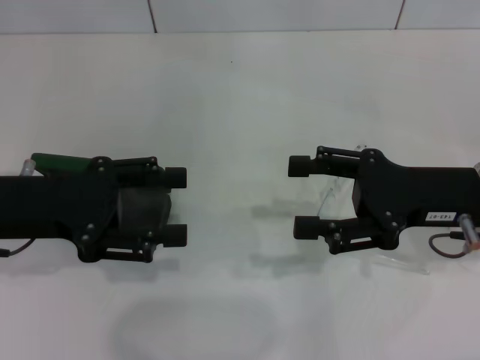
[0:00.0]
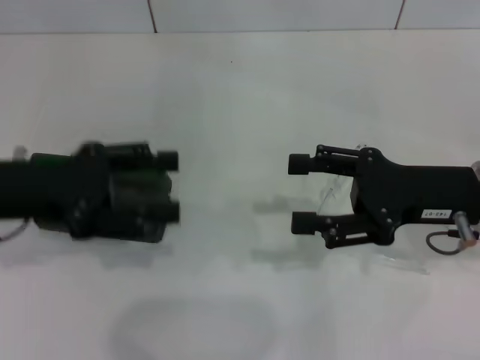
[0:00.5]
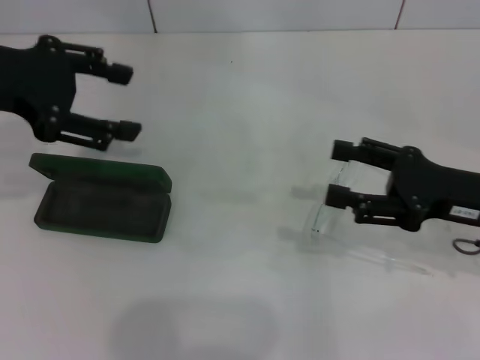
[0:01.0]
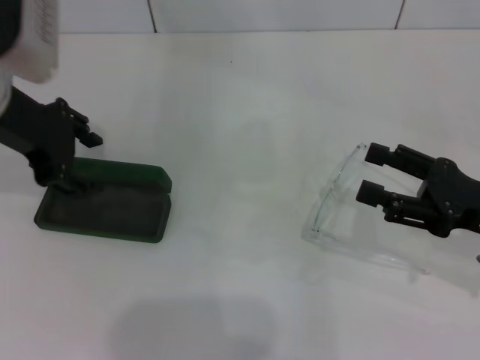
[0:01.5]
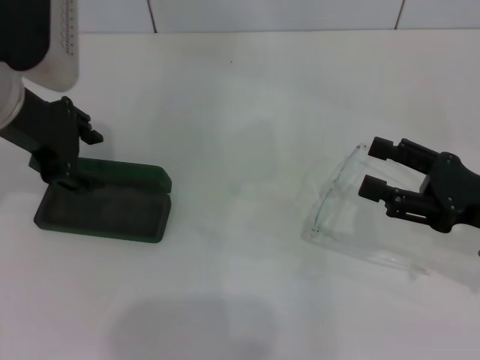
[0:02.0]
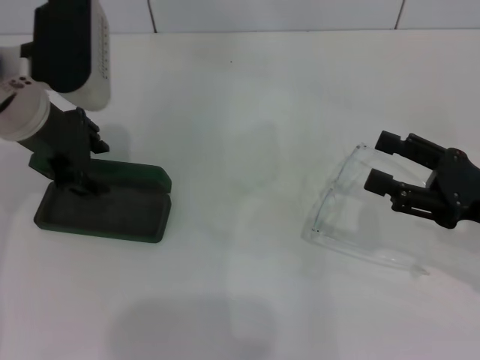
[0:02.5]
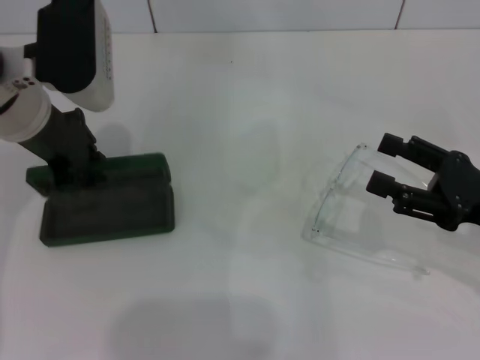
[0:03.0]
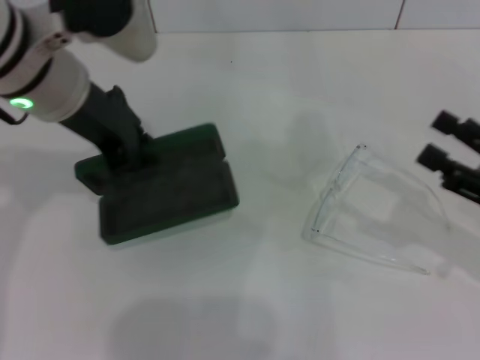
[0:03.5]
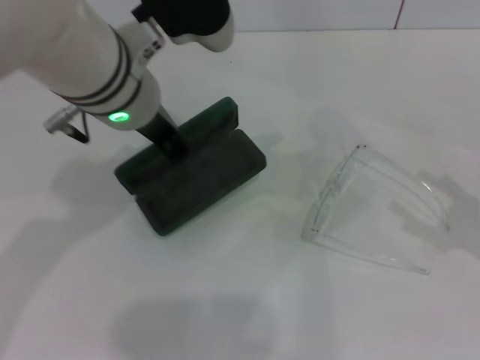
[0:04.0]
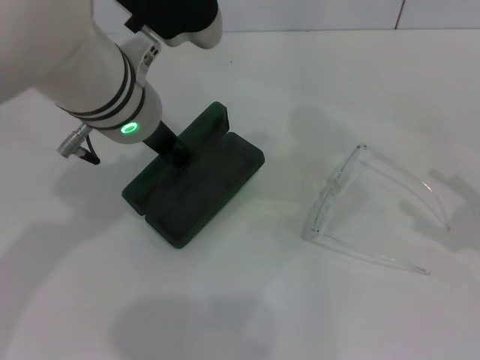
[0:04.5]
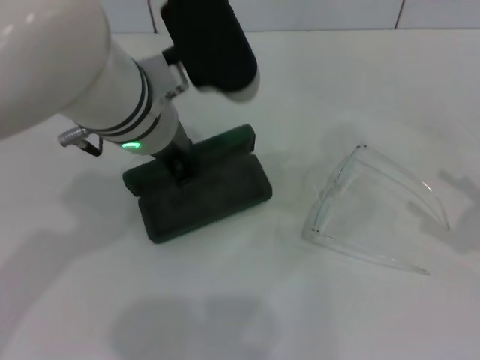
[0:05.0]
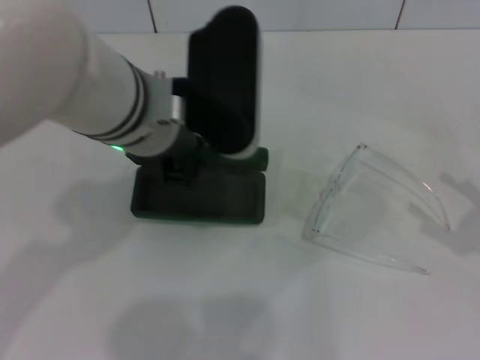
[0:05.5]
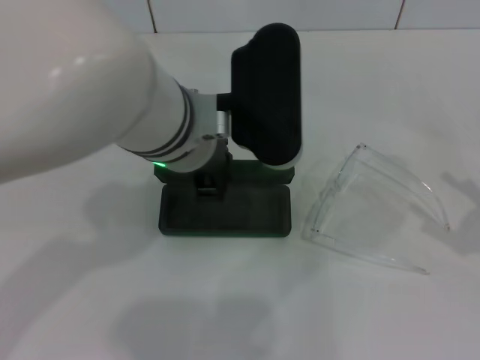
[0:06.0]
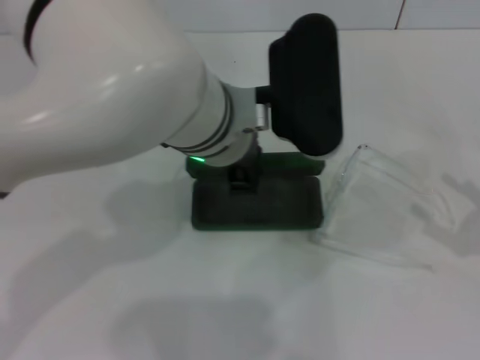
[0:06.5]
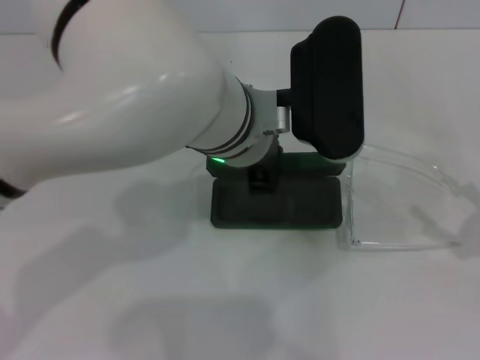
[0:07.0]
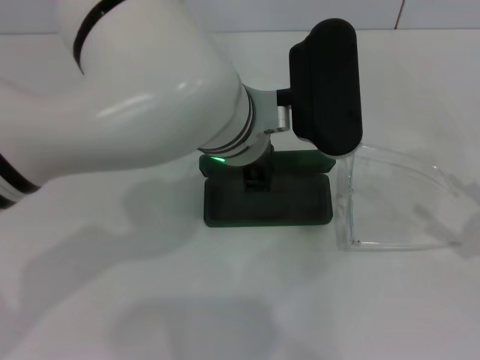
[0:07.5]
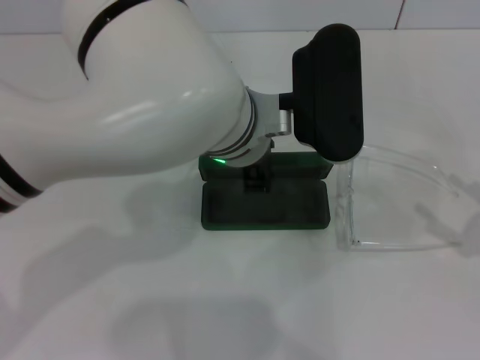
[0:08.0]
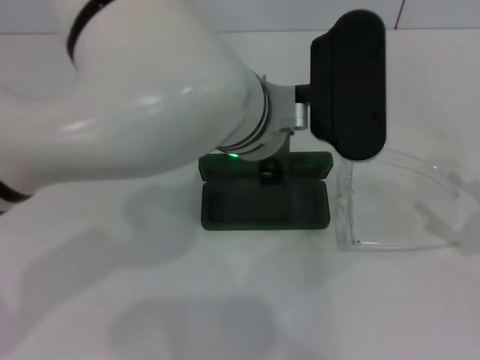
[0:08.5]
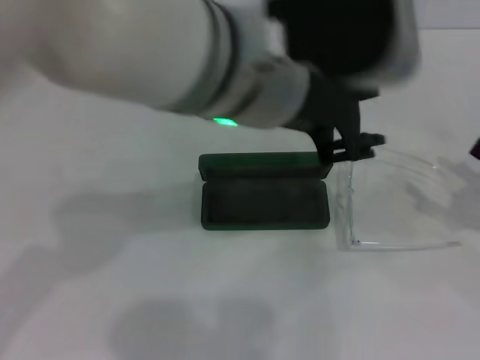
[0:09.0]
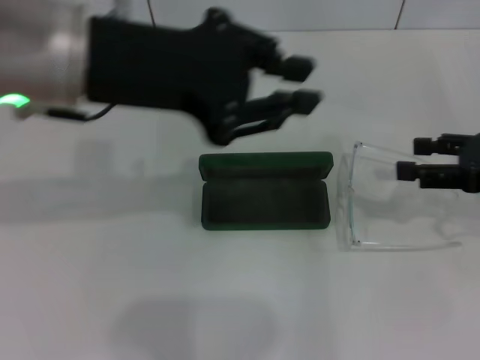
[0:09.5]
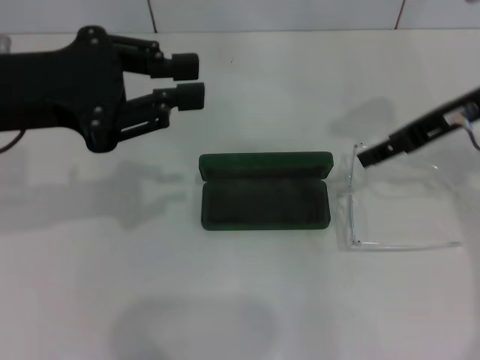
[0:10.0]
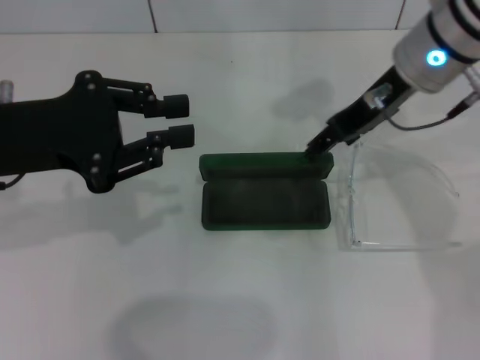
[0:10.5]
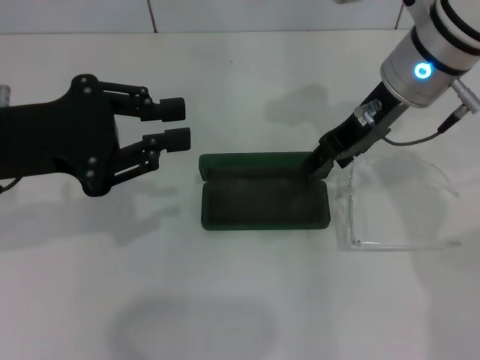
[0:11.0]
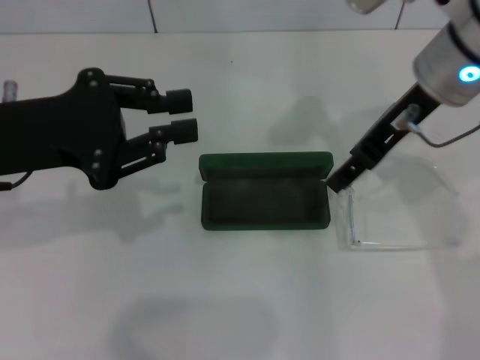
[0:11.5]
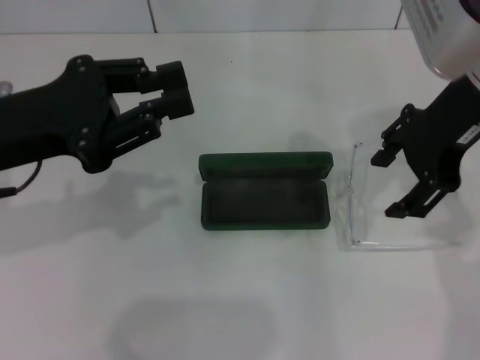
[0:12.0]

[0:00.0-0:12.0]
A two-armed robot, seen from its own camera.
Step, 0:00.0 to 0:02.5: Grab the glasses case with your left hand.
Step, 0:03.0 to 0:08.0: Place the glasses case in the center of the table with your left hand.
0:00.0 to 0:02.0: The right gripper heads to the right, covering some 5 cm. The left gripper shifts about 10 cm forward and upward.
0:02.0 to 0:04.0: The left gripper shifts about 10 cm to the right, and closes its fingers. Meanwhile the right gripper heads to the right, covering approximately 10 cm.
0:04.0 to 0:06.0: The left gripper shifts by about 5 cm.
0:08.0 to 0:10.0: The left gripper goes approximately 25 cm to the left. The right gripper is displaced forward, to the left and upward by approximately 25 cm.
0:10.0 to 0:12.0: The right gripper moves about 5 cm.

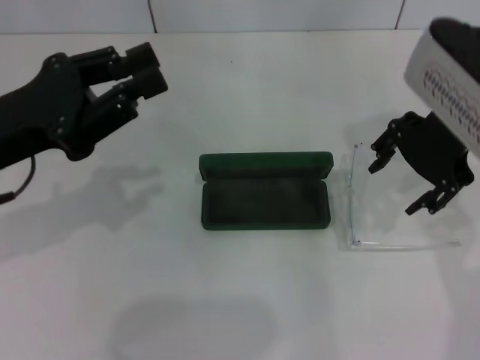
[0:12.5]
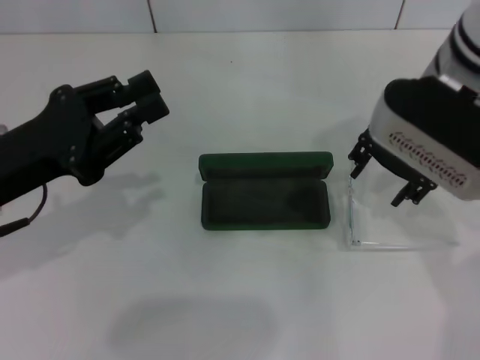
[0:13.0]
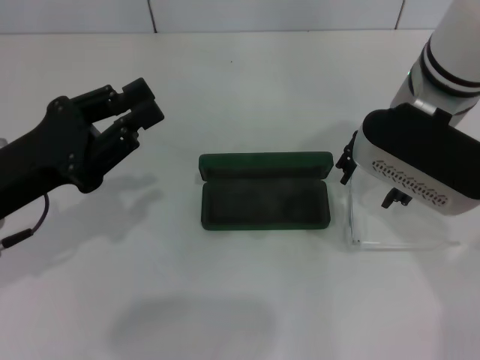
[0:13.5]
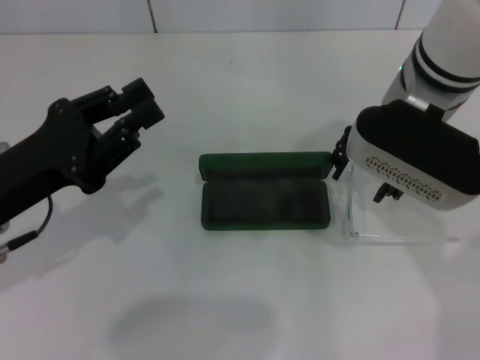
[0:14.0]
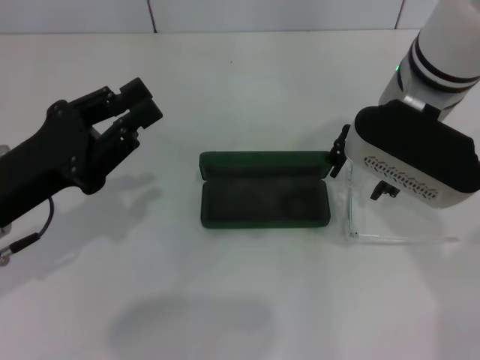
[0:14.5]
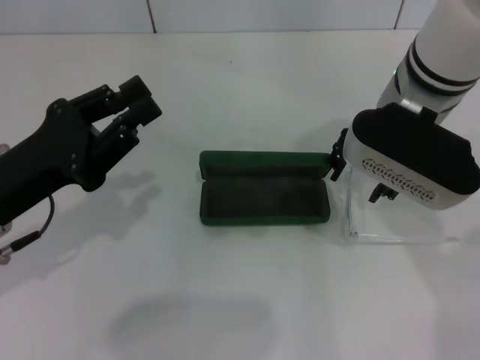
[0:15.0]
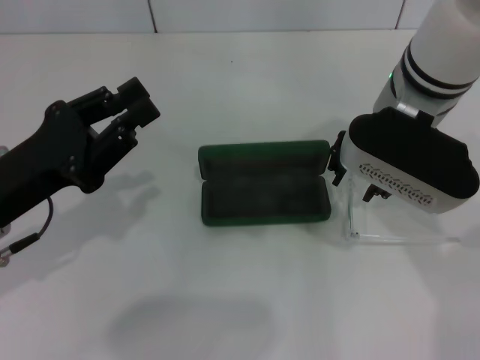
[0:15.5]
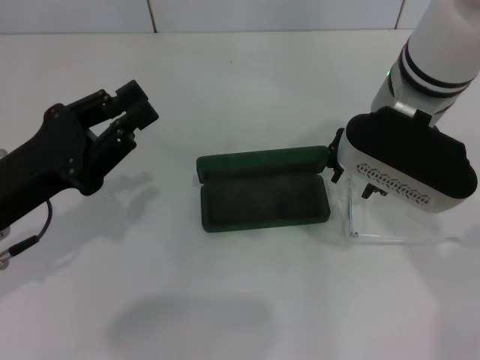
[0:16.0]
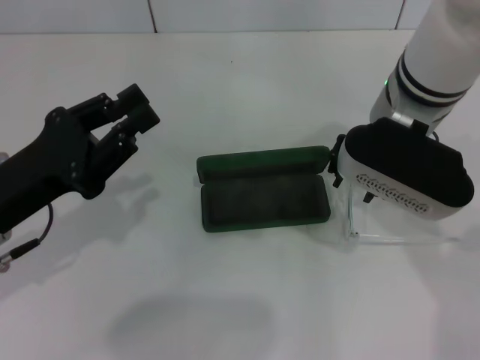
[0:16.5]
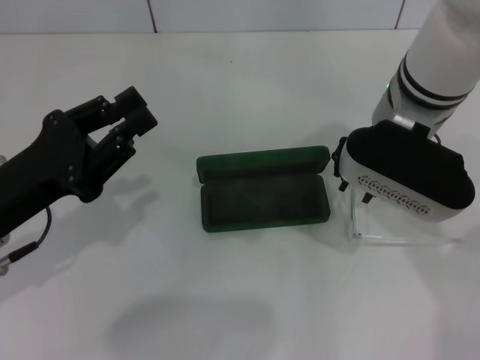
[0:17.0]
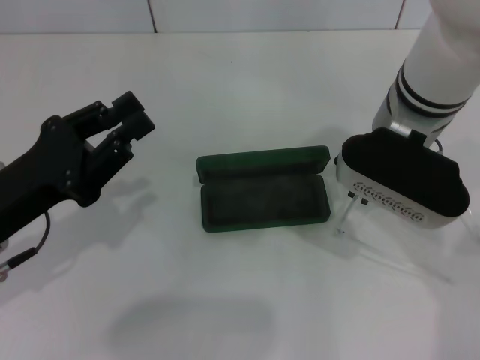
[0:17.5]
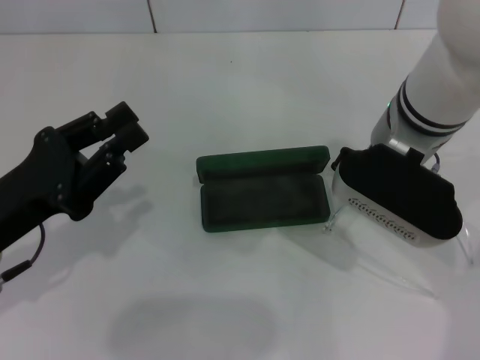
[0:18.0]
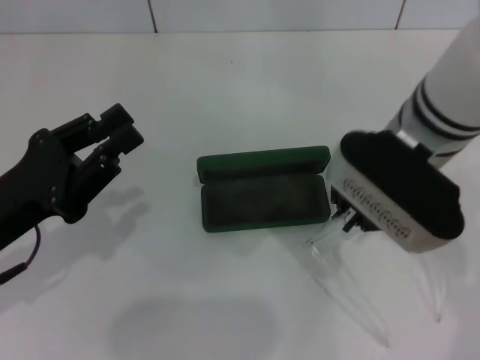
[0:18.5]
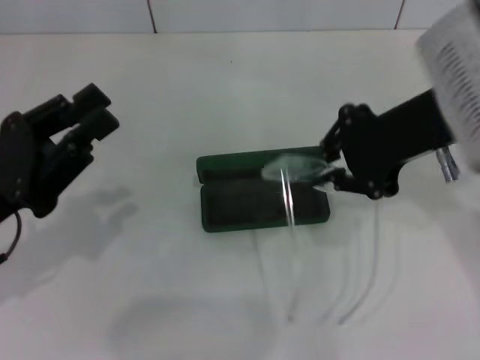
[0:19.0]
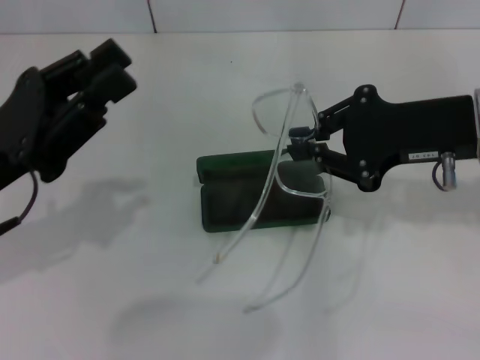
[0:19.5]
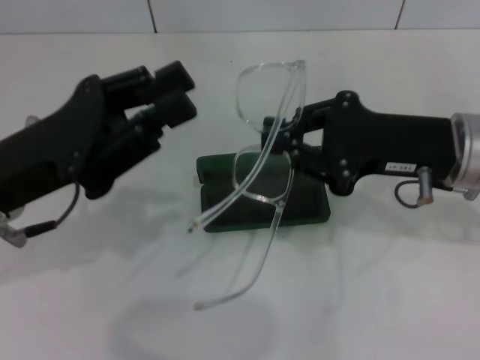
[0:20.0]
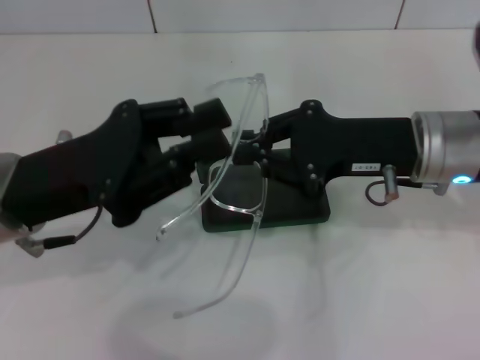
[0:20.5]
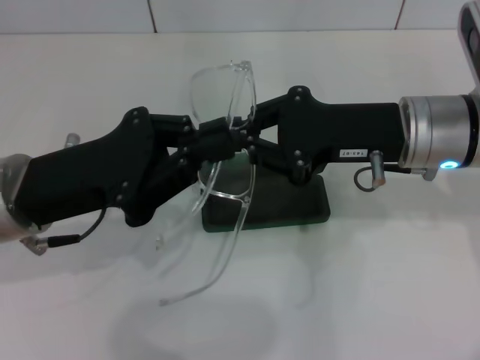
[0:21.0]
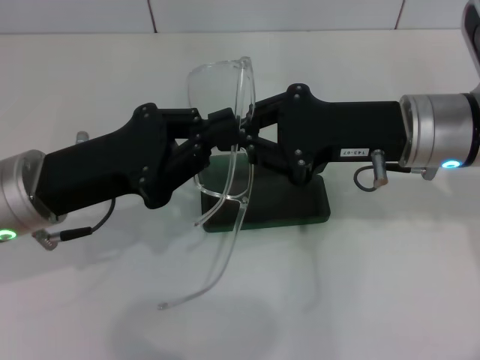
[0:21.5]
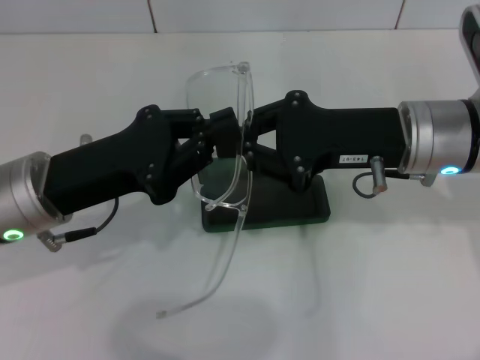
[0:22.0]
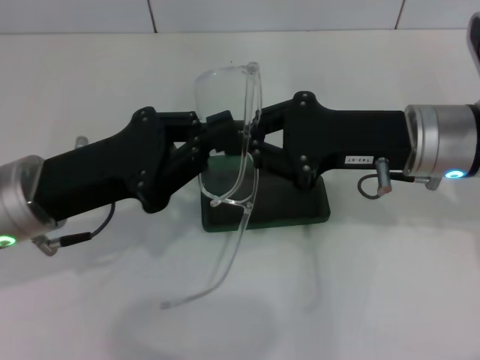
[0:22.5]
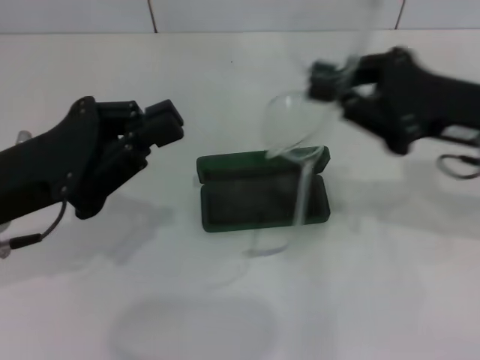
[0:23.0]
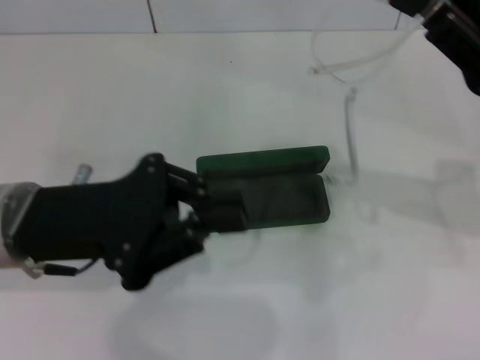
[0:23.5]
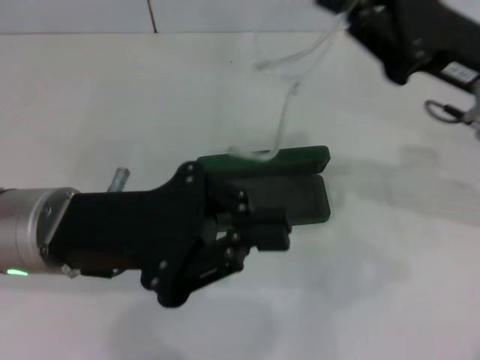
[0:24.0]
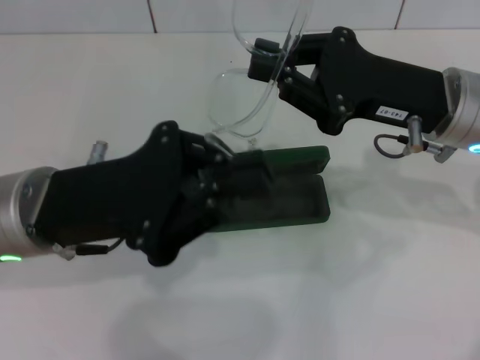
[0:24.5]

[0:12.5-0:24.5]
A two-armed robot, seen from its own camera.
Step, 0:12.5 to 0:17.0: Grab the eyeglass frame with your right hand.
0:12.5 to 0:14.5: The left gripper heads downward, covering roughly 5 cm. Meanwhile the right gripper is displaced to the left by roughly 5 cm.
0:14.5 to 0:16.5: The two grippers keep their place.
0:16.5 to 0:18.5: The right gripper closes.
0:18.5 to 0:20.5: The grippers both shift to the right by about 5 cm.
0:20.5 to 0:22.5: There are only small adjustments of the grippers.
0:22.5 to 0:24.5: The right gripper goes to the right and returns, some 10 cm each way.

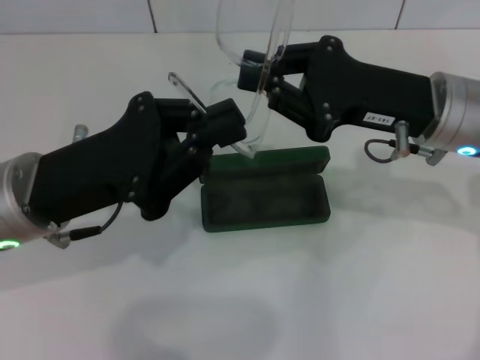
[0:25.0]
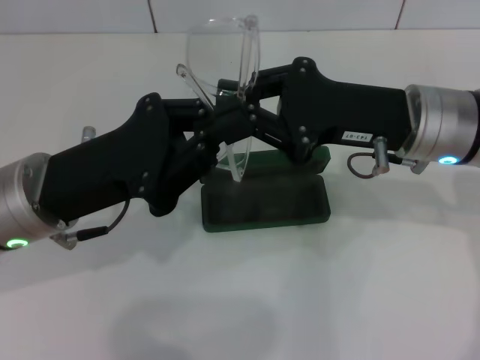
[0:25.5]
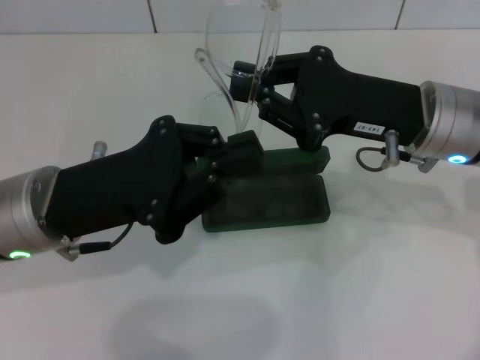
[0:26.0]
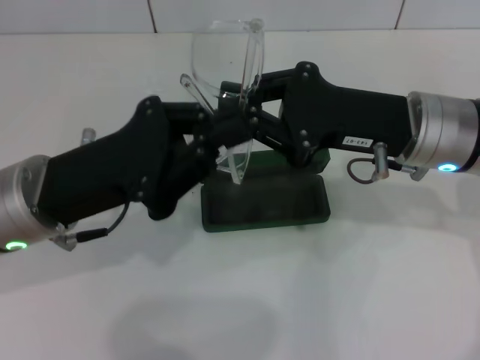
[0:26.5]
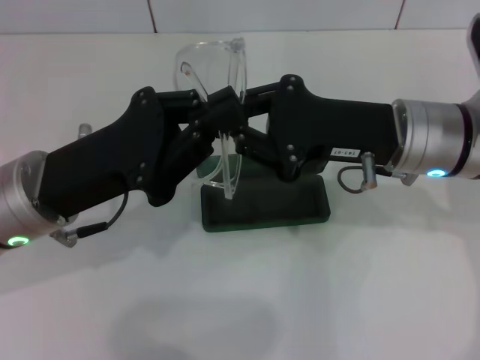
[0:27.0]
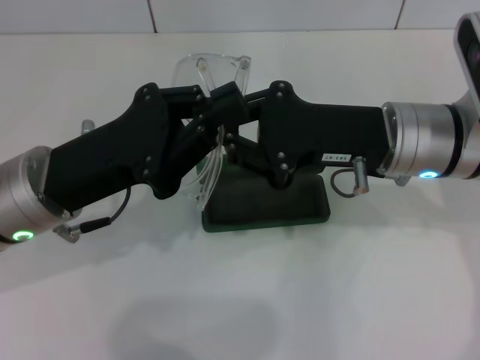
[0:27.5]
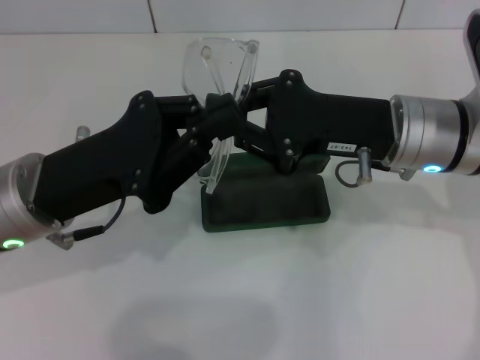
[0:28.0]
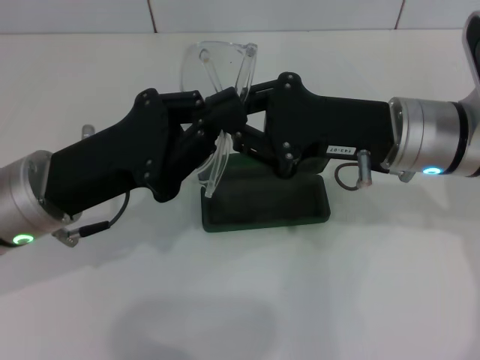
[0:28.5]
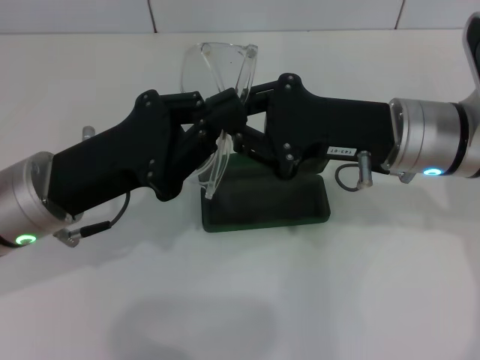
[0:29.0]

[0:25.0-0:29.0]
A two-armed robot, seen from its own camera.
Step, 0:25.0 to 0:27.0: Fold the frame with your left hand.
0:25.0 to 0:27.0: There are only small adjustments of the grippers.
0:27.0 to 0:29.0: Both grippers stay about where they are.
